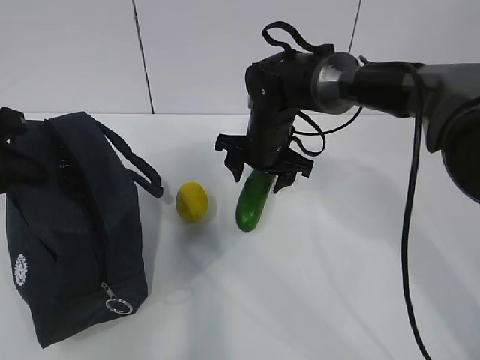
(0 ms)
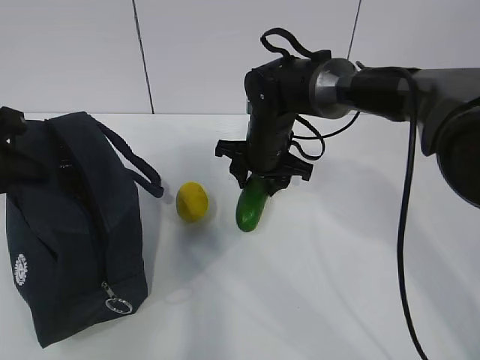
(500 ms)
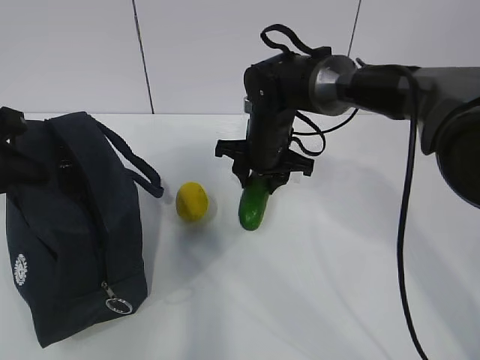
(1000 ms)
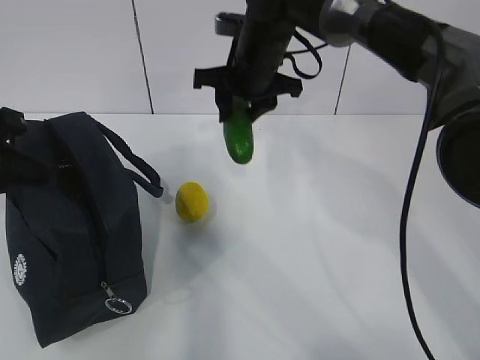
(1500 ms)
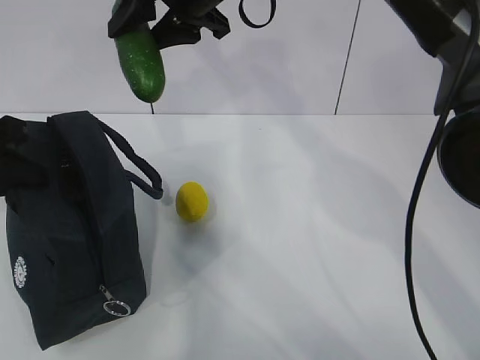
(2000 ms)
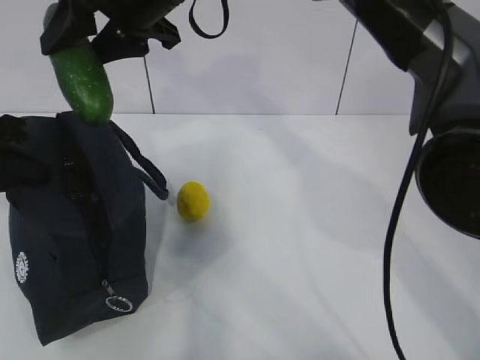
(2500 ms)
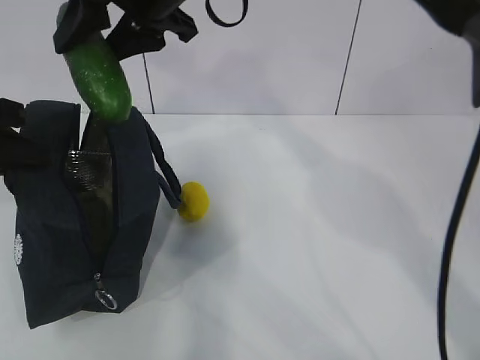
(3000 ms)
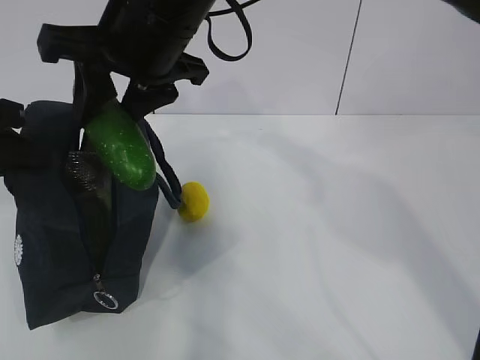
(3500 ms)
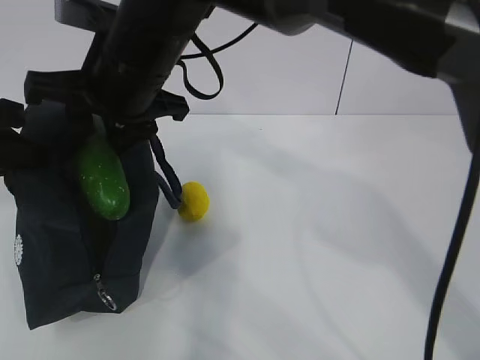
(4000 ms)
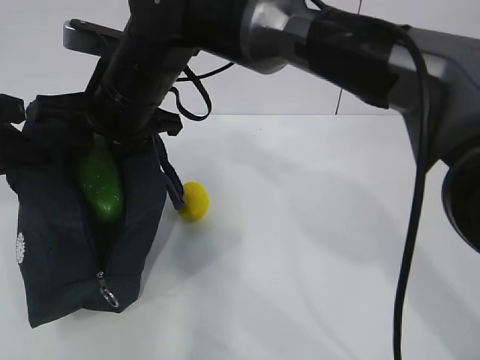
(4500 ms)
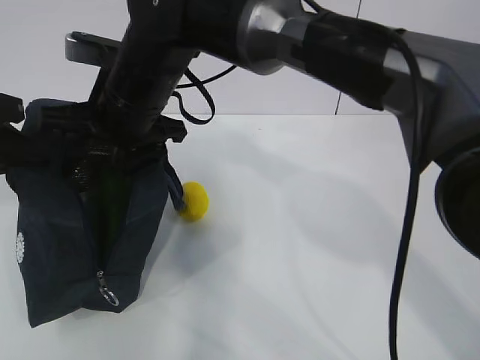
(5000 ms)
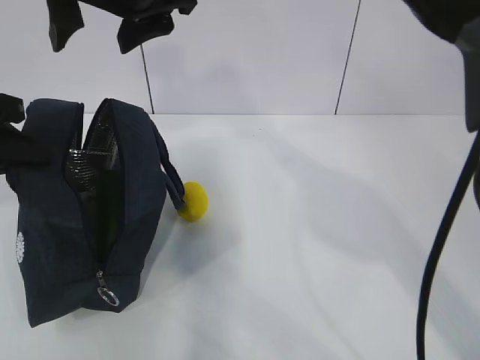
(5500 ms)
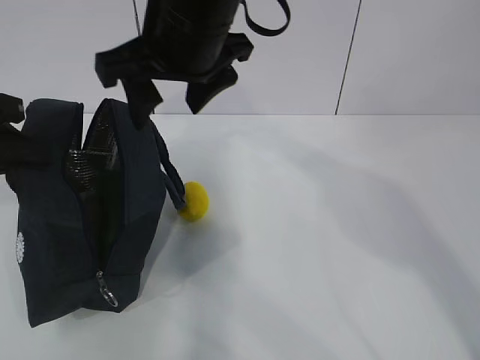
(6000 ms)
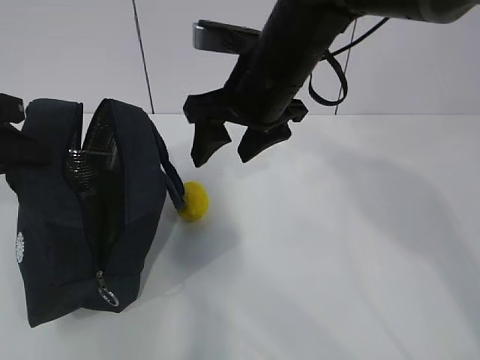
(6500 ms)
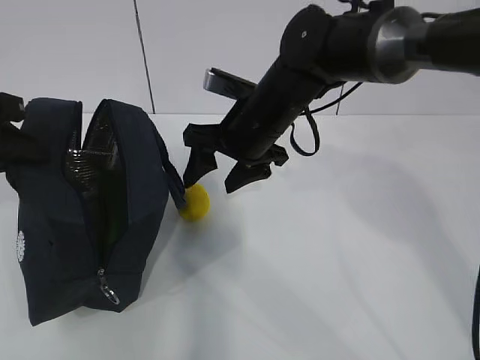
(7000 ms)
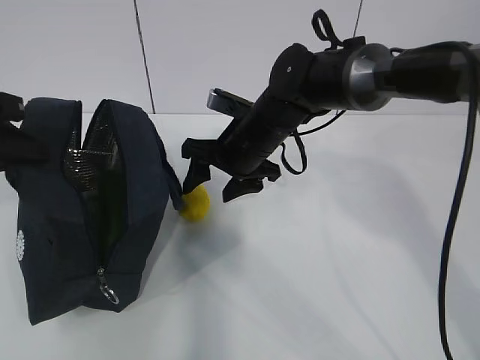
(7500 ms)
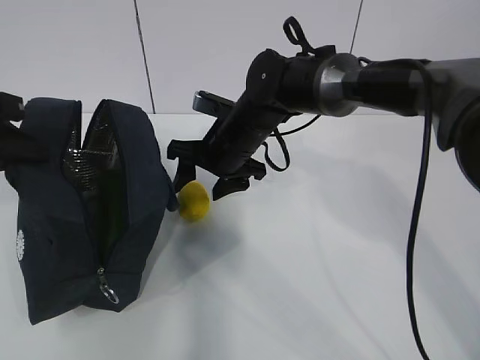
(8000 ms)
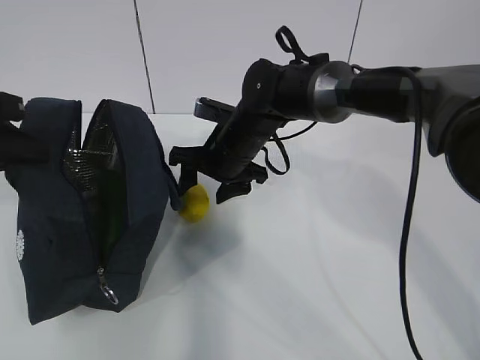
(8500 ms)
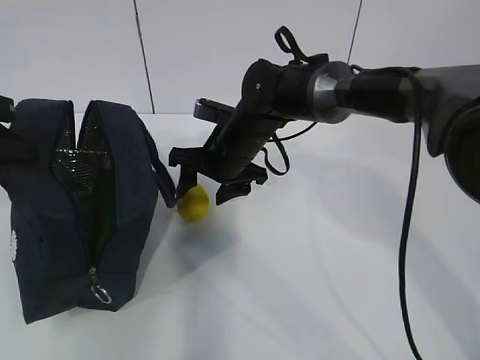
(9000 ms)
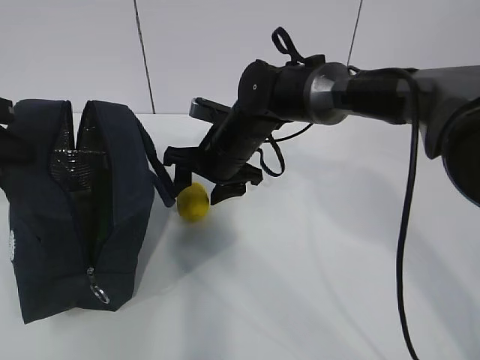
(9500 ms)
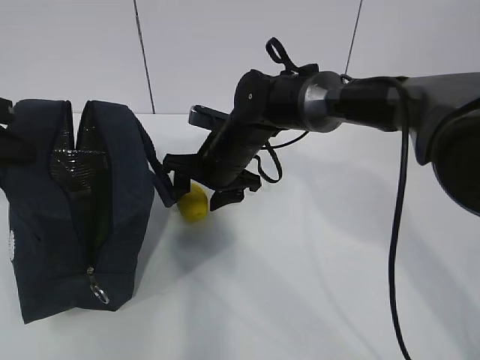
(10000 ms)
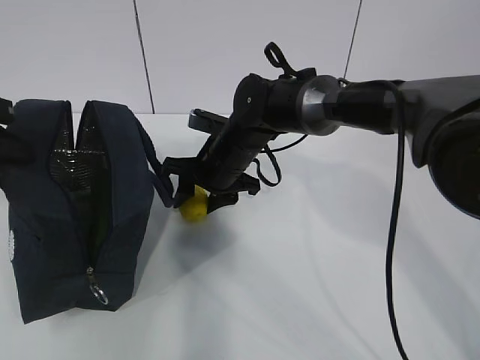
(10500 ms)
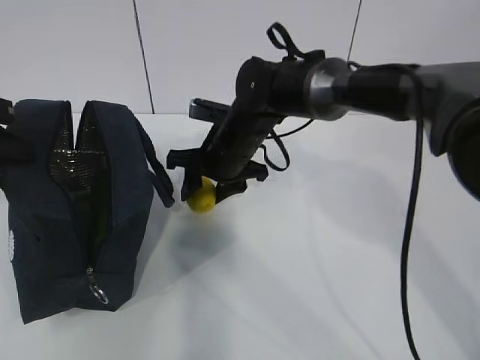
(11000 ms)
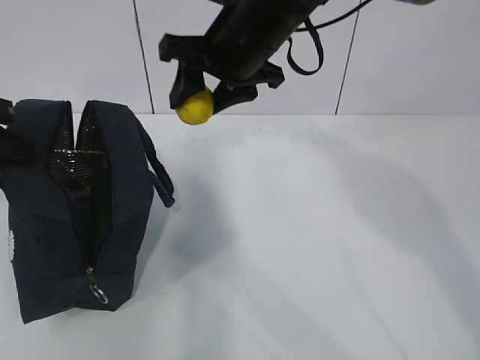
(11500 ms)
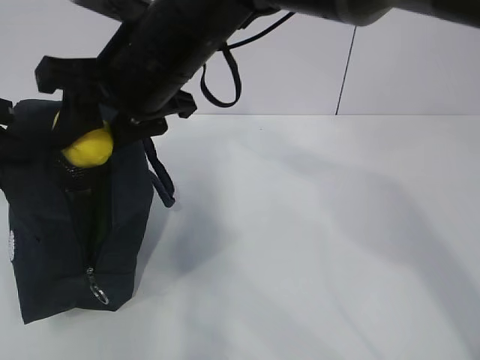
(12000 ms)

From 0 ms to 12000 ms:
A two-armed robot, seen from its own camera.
Step, from 0 ms to 3500 ms: Grab the lemon with your right hand.
Step, from 6000 ms to 7000 ms: Grab the lunch bag with your right hand.
Step, from 7500 ms to 10500 ms: Move the lunch bag to the right.
From 0 ms to 2000 ms: The right gripper travels upward by some 20 cm, and closes up.
From 2000 ms to 4000 ms: The right gripper shifts about 10 cm backward and to the left.
From 4000 ms to 6000 ms: The right gripper moves up and down over roughly 10 cm, changing direction 2 times, and opens.
From 6000 ms to 8000 ms: The right gripper travels downward and forward by some 20 cm.
From 8000 ms to 10000 ms: The grippers stay close to where they were, moving slightly.
From 10000 ms to 12000 ms: The right gripper is displaced upward and backward by approximately 20 cm.

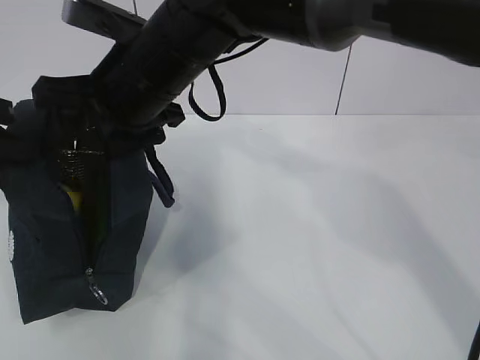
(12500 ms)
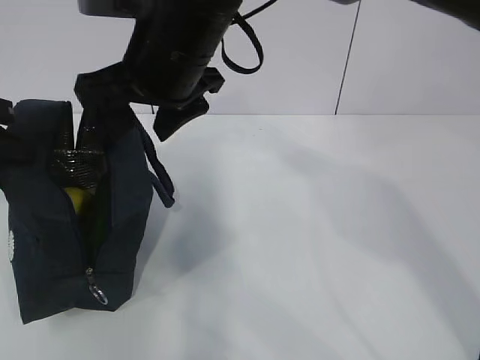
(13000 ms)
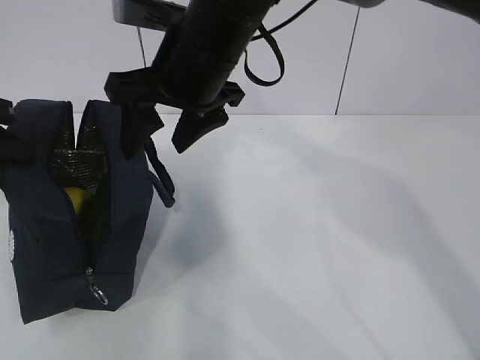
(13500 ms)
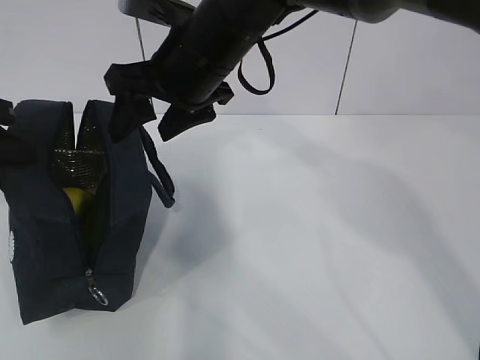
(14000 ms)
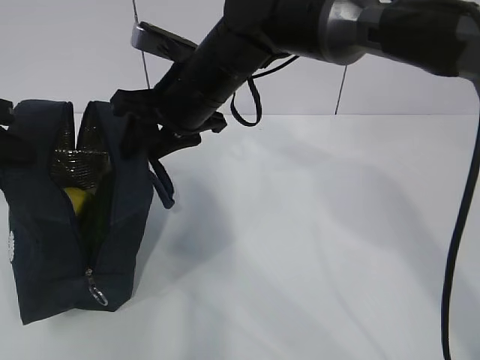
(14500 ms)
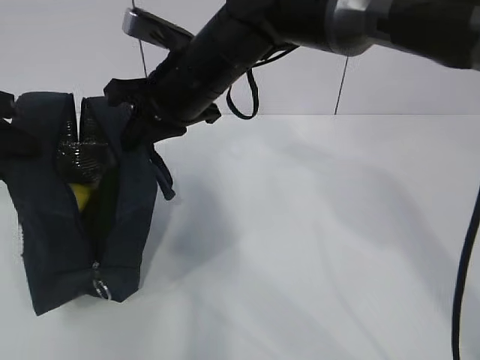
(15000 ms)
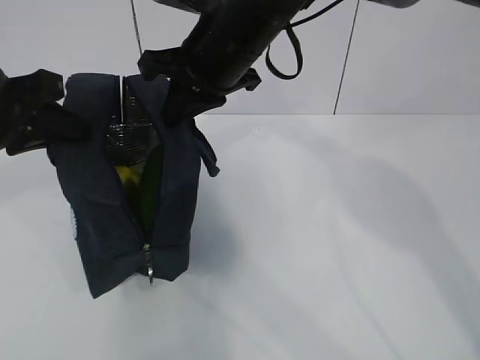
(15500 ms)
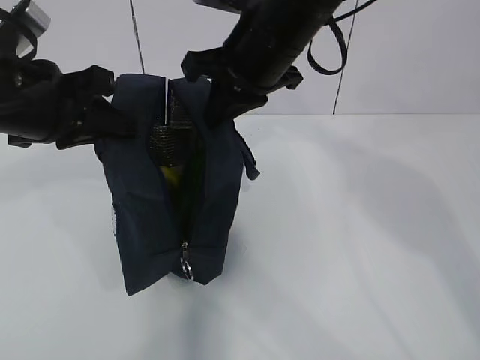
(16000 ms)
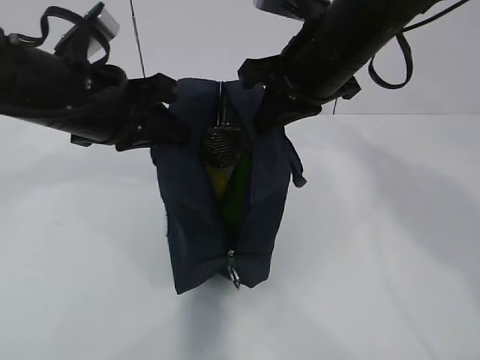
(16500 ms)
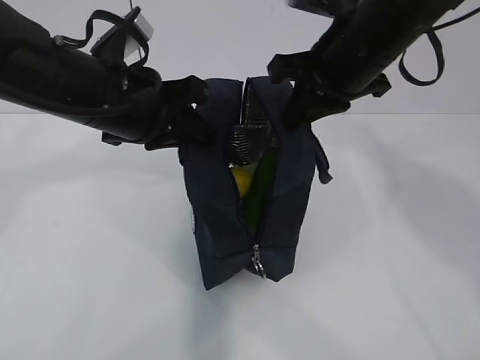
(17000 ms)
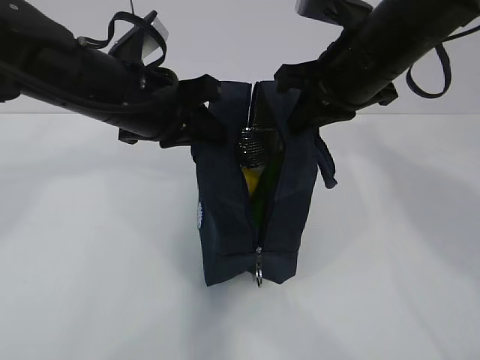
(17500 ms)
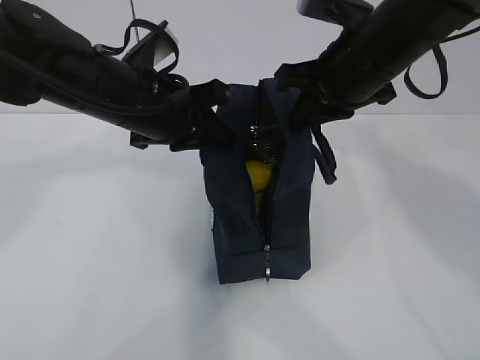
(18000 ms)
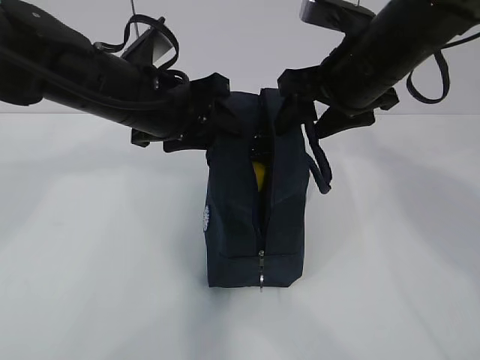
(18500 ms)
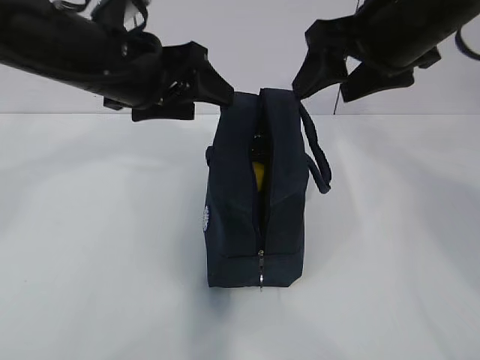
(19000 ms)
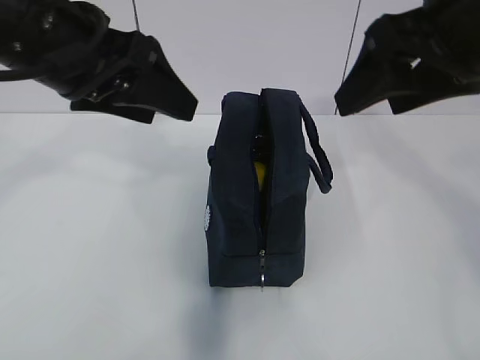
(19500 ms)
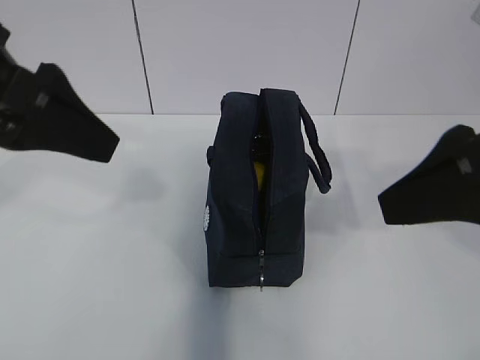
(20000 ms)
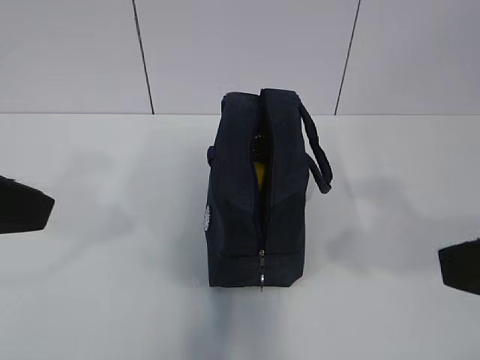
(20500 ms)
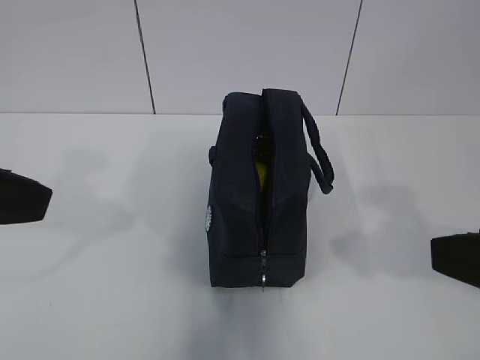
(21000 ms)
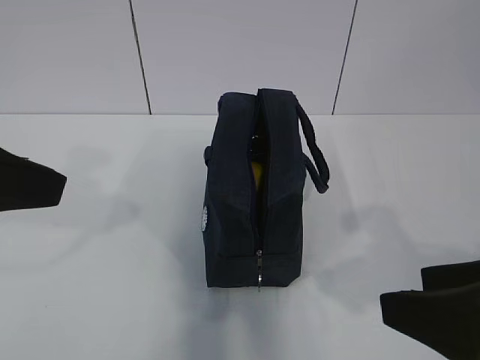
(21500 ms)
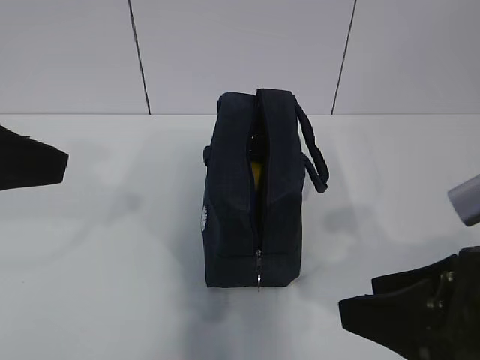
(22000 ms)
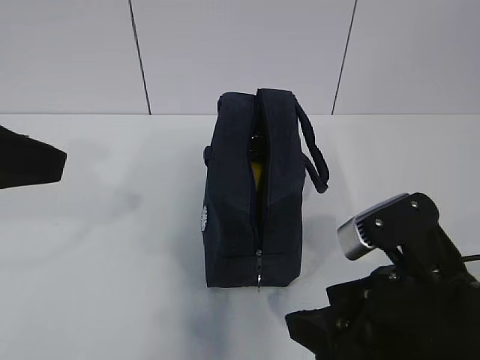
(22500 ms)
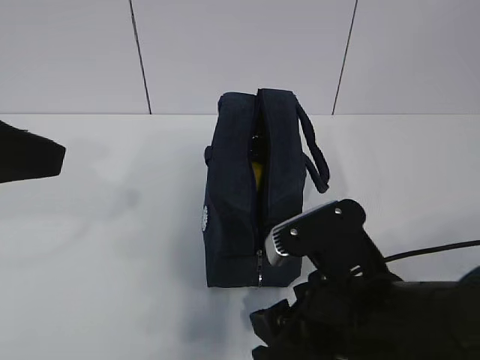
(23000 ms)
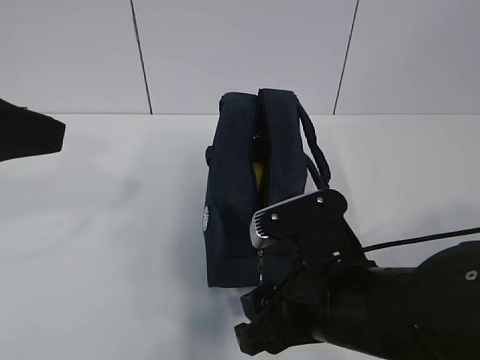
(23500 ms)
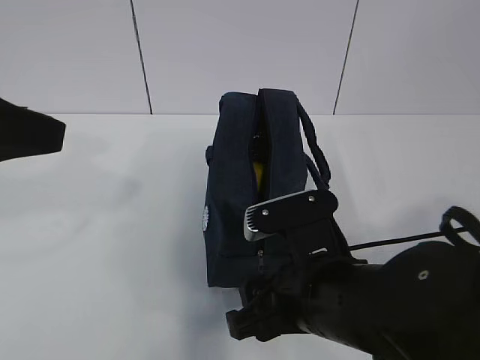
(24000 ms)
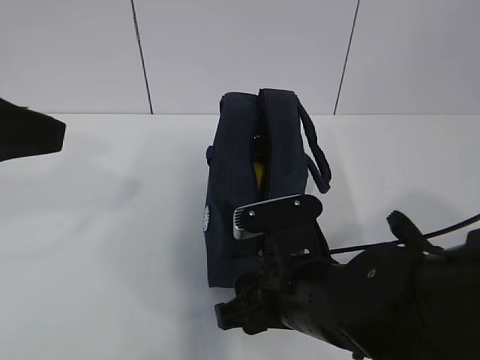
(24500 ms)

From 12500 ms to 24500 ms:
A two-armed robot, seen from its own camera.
From 12500 ms to 14500 ms: The right gripper goes some 5 cm forward, and closes its fingers.
From 14500 ms to 16500 ms: The right gripper heads to the right and upward, covering roughly 15 cm, and closes up. The left gripper goes about 15 cm to the right.
From 16500 ms to 18500 ms: The left gripper moves approximately 5 cm, and opens its fingers. Meanwhile the right gripper opens up.
From 18500 ms to 20500 ms: The left gripper goes some 25 cm backward, to the left and upward, and opens, while the right gripper shifts approximately 25 cm backward.
From 20500 ms to 22500 ms: The right gripper moves downward and to the left, some 15 cm.
From 22500 ms to 24500 ms: The right gripper shifts roughly 10 cm to the left, forward and downward.

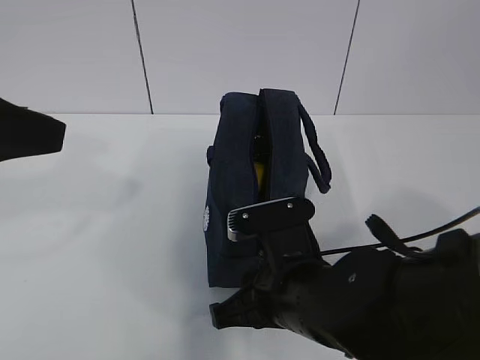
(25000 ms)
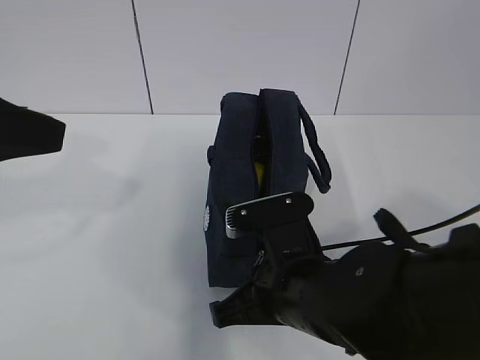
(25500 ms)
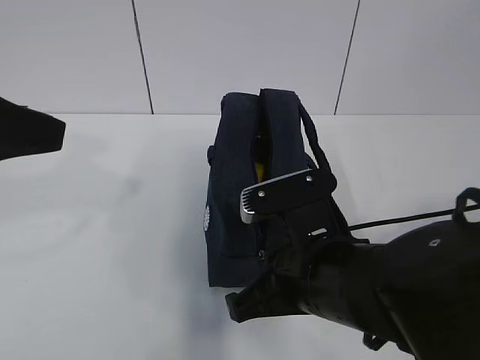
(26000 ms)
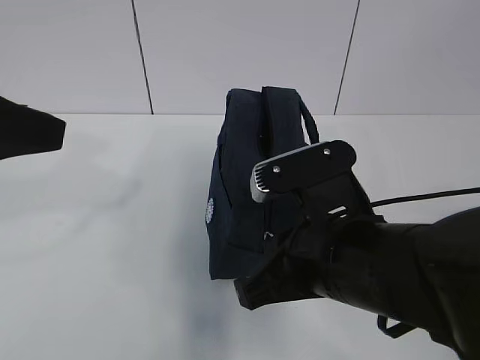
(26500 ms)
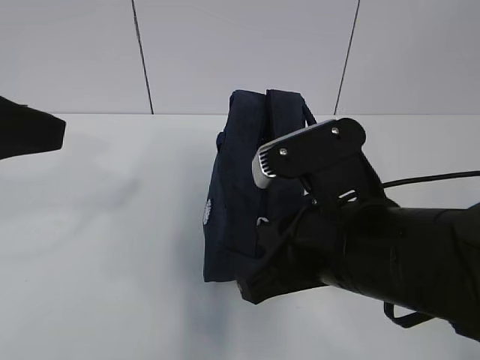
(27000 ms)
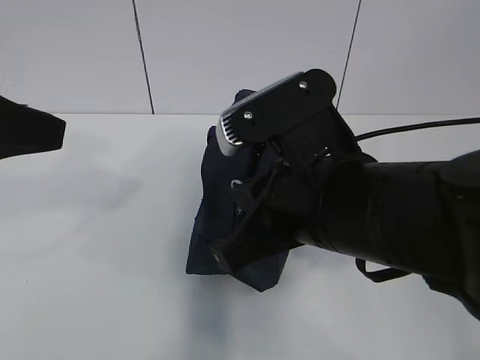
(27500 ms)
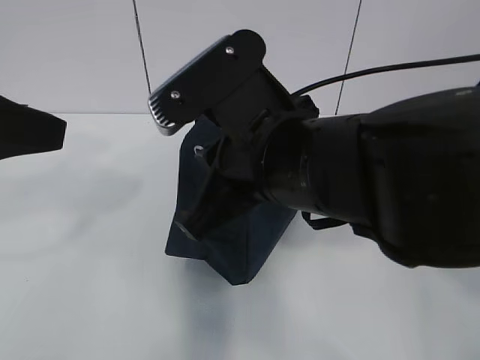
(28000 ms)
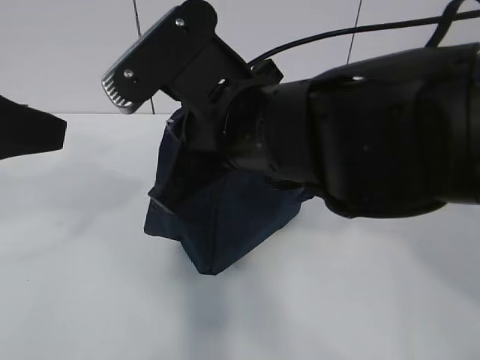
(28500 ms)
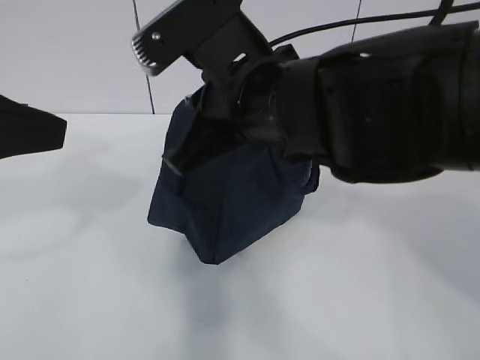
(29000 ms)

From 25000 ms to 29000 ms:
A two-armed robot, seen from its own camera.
From 25000 ms to 27000 ms: The right gripper travels upward by roughly 10 cm, and closes.
From 27000 ms to 29000 ms: The right gripper shifts approximately 10 cm forward, upward and to the left.
